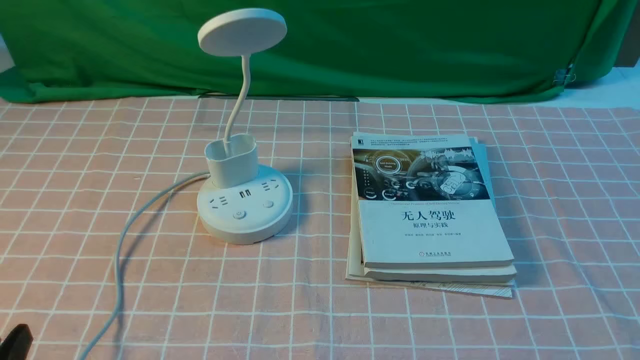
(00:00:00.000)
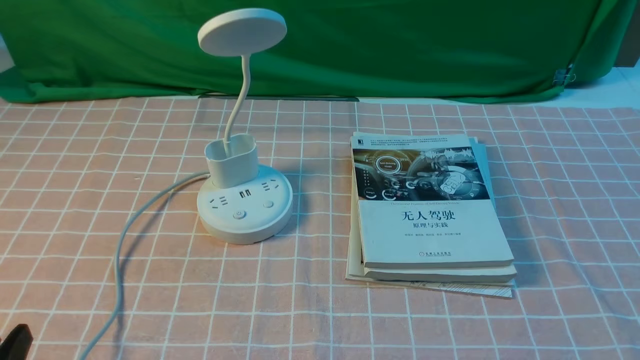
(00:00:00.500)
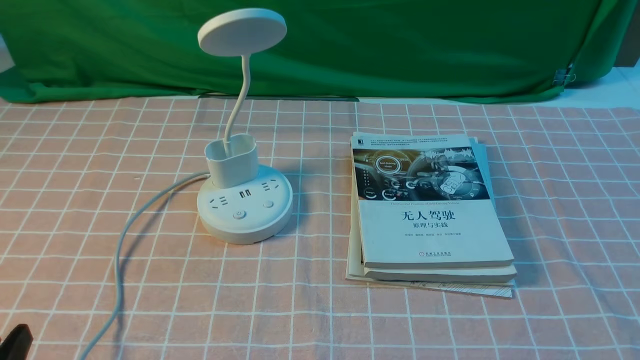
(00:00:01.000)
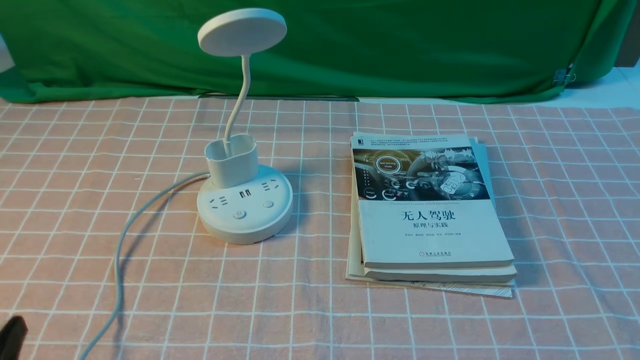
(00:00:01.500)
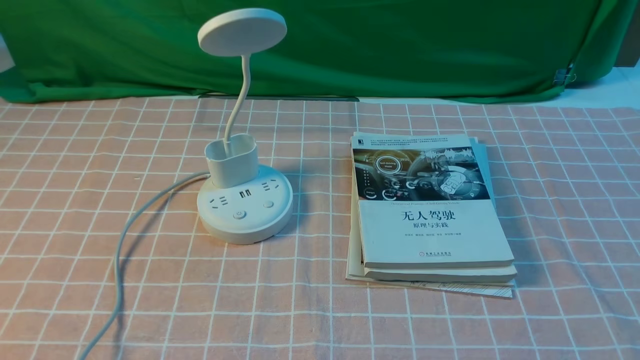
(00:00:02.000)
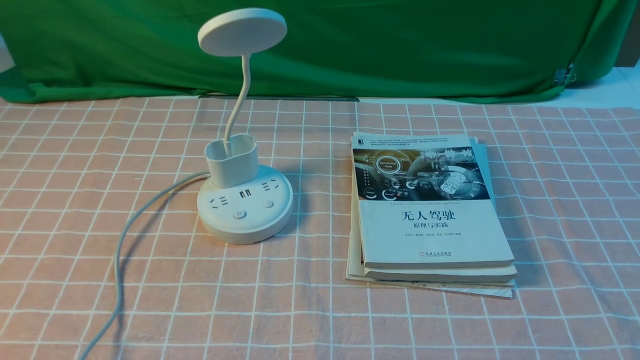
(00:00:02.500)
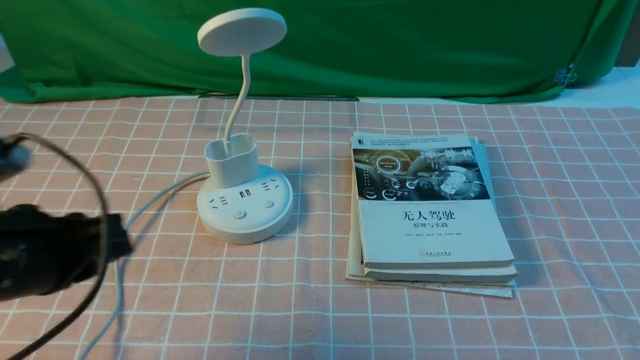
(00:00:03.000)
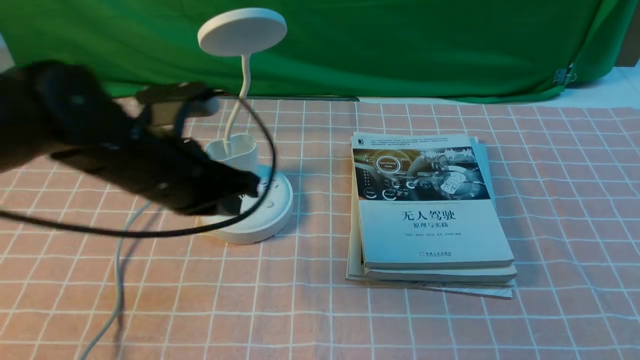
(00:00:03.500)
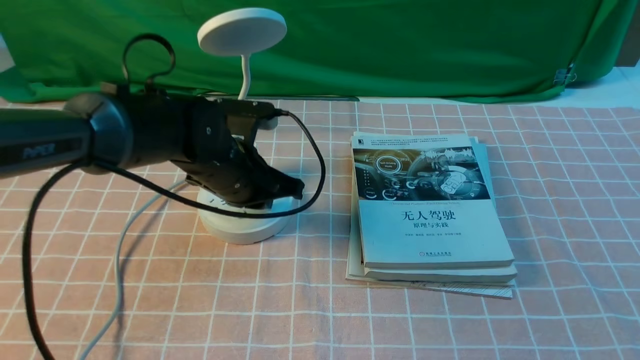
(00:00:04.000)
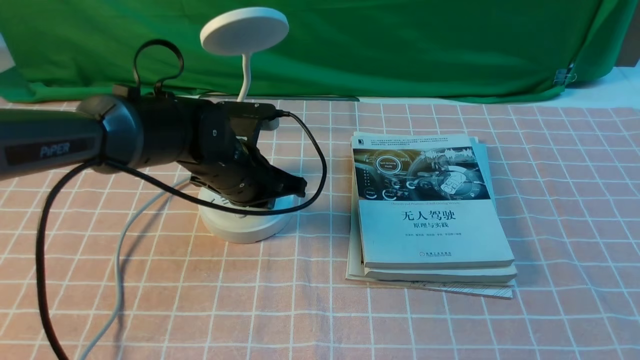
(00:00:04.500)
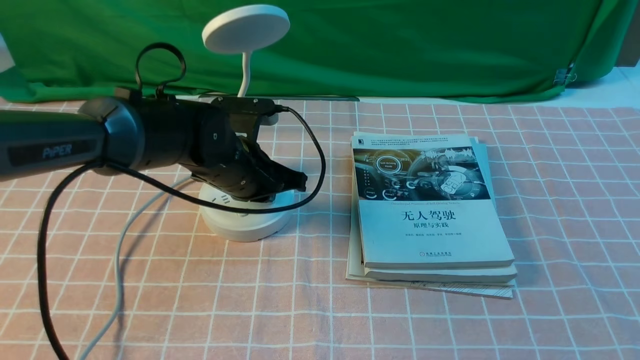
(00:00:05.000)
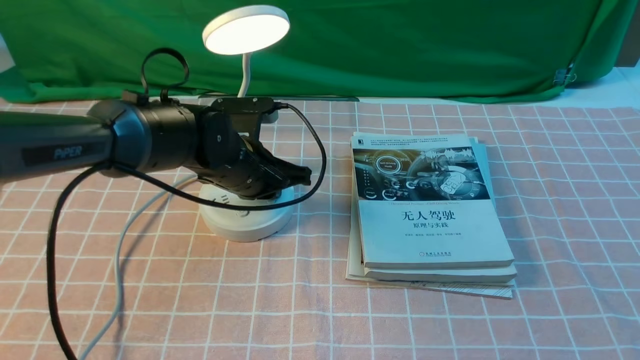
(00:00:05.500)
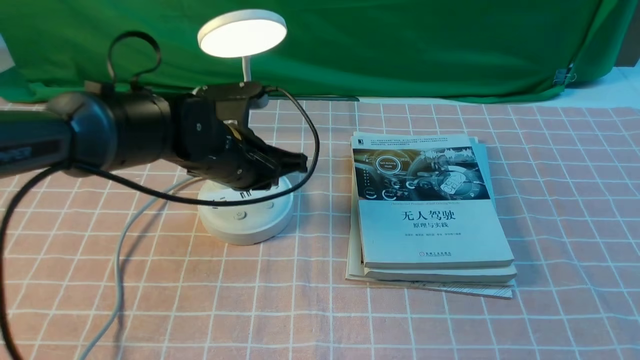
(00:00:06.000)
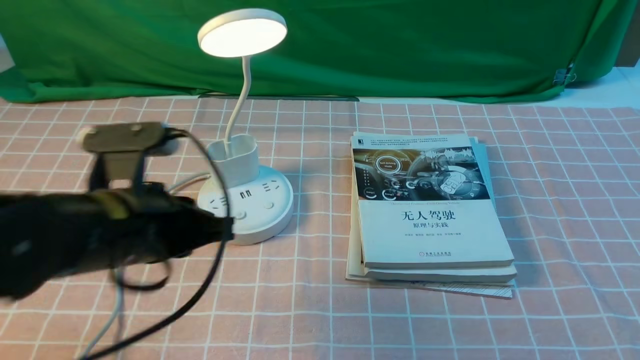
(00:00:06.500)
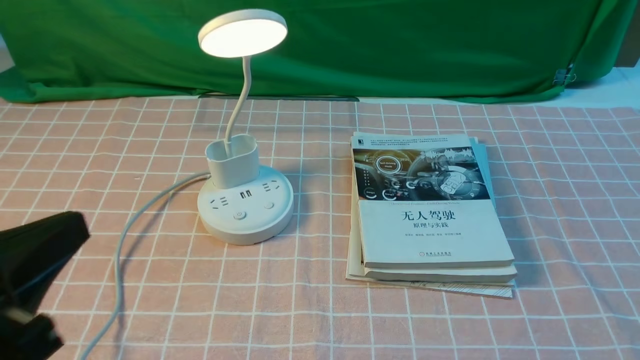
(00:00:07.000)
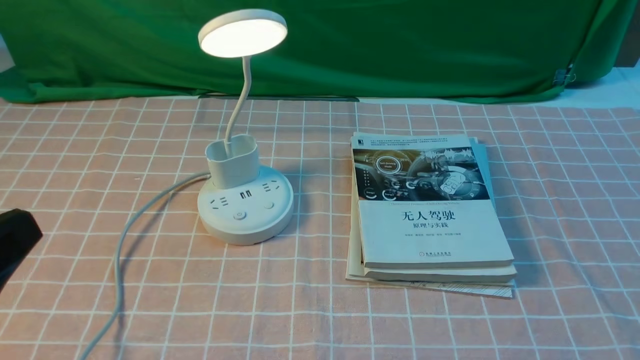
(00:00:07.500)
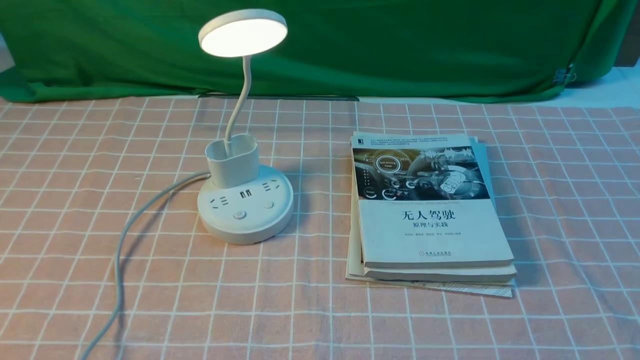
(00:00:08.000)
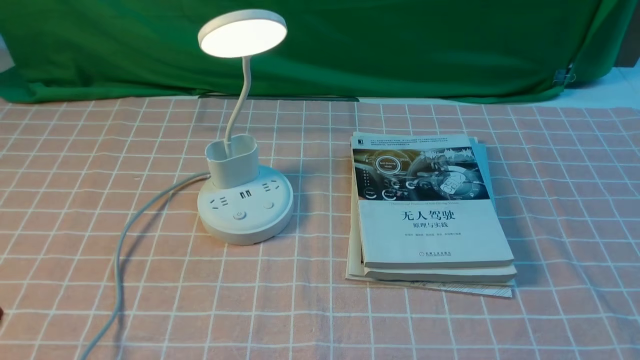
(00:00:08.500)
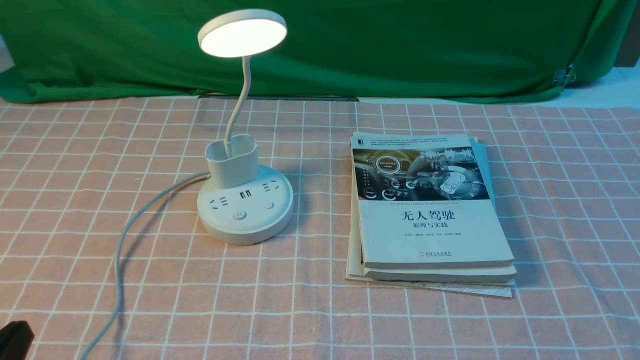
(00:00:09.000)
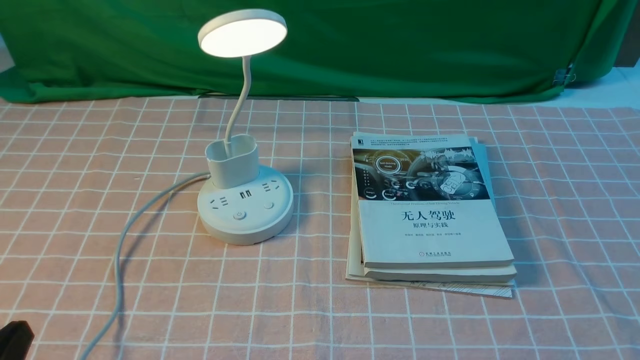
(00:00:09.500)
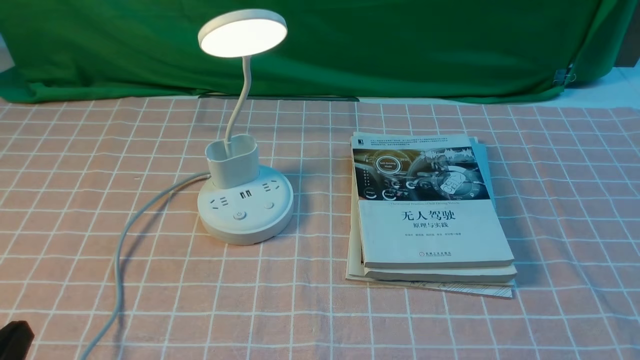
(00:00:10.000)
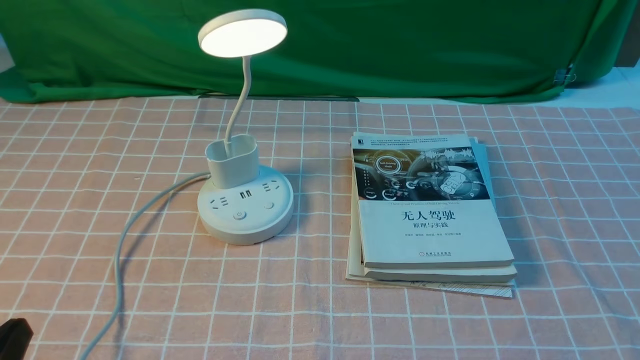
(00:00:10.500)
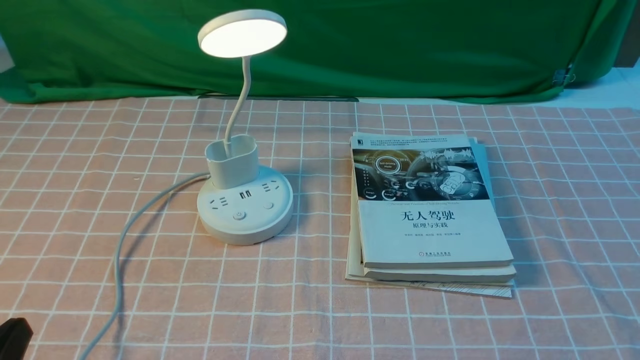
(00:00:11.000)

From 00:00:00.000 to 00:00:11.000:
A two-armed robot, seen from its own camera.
Step, from 00:00:00.000 to 00:00:05.500: use the left arm to press the button switch on the lamp holder.
From 00:00:02.000 to 00:00:03.500: The left gripper is displaced forward and to the right by approximately 30 cm, and closes up.
From 00:00:03.500 to 00:00:05.500: The left gripper moves downward, forward and to the right, approximately 15 cm.
From 00:00:05.500 to 00:00:07.500: The left gripper travels backward, to the left and upward by approximately 40 cm.
From 00:00:07.500 to 00:00:09.000: The left gripper is displaced downward by some 15 cm.
From 00:00:09.000 to 00:00:11.000: Both grippers stay about where they are.
